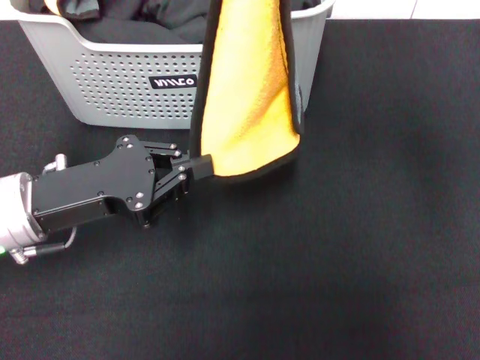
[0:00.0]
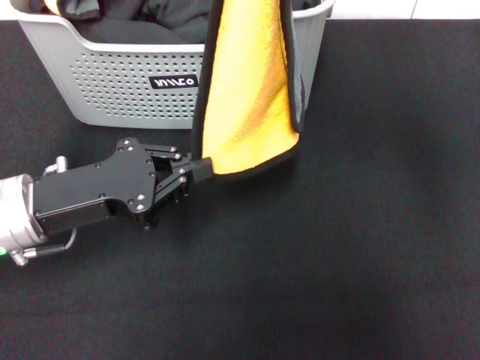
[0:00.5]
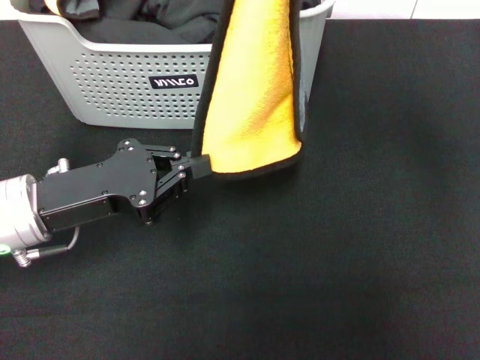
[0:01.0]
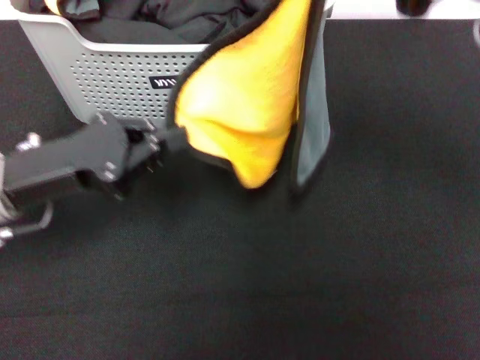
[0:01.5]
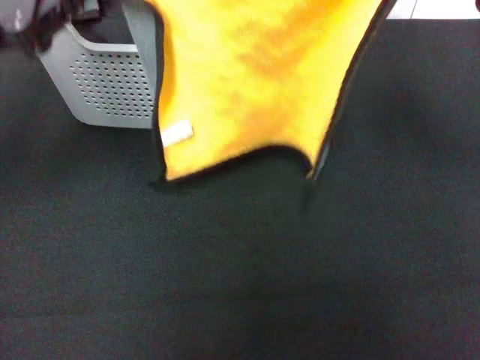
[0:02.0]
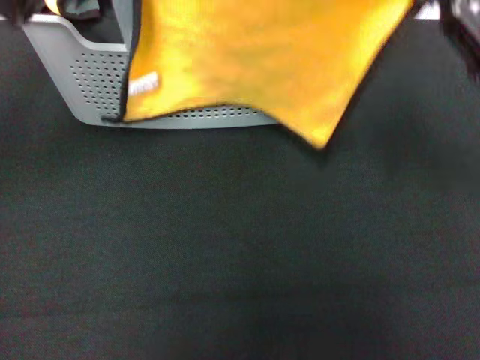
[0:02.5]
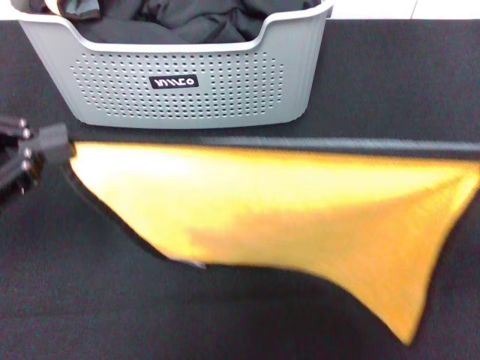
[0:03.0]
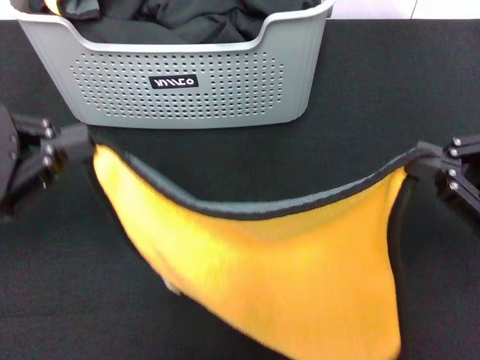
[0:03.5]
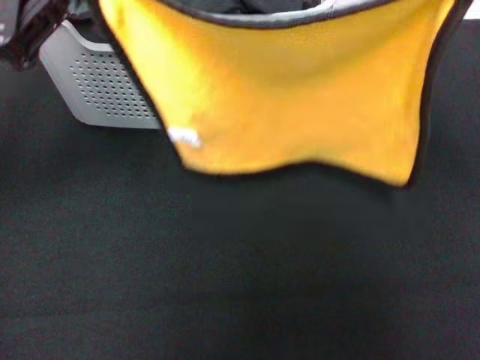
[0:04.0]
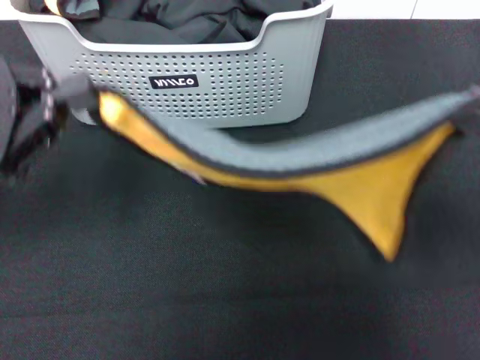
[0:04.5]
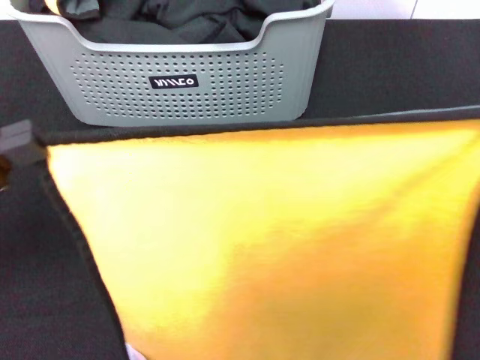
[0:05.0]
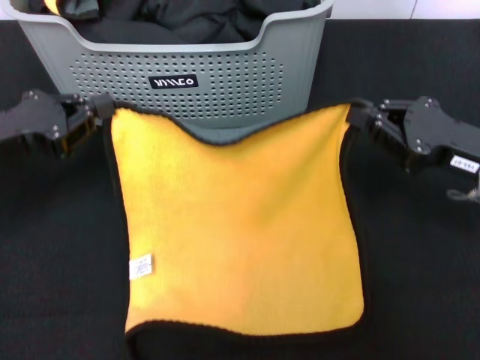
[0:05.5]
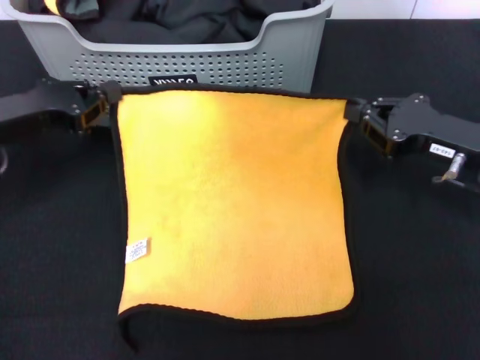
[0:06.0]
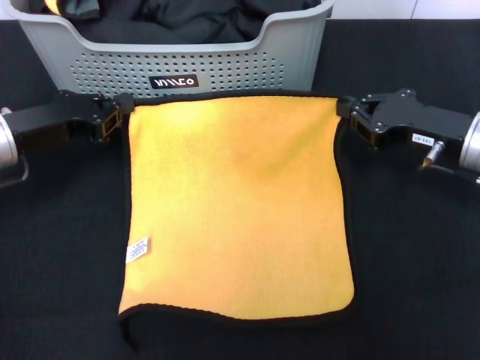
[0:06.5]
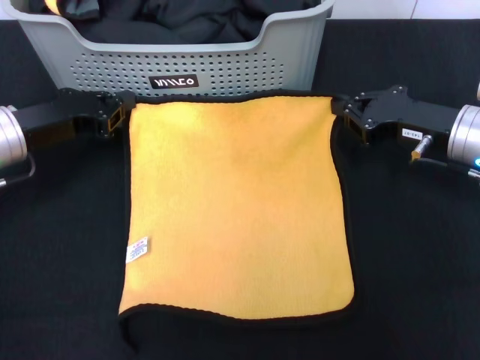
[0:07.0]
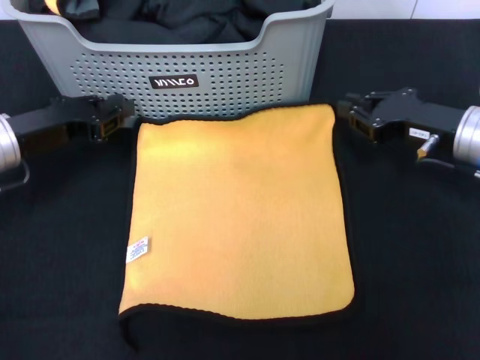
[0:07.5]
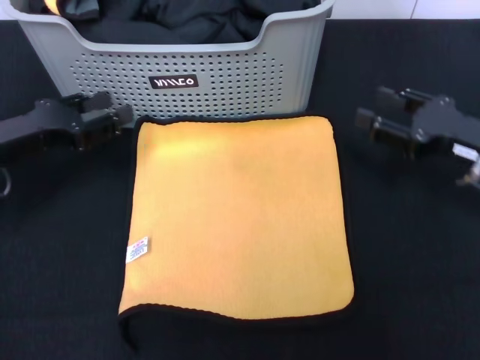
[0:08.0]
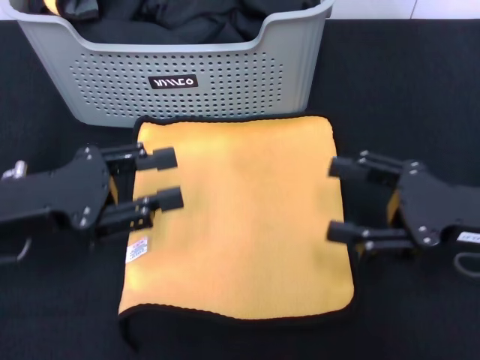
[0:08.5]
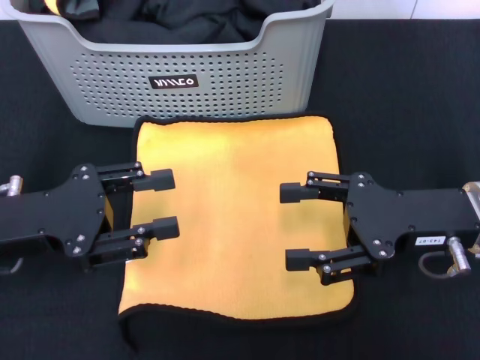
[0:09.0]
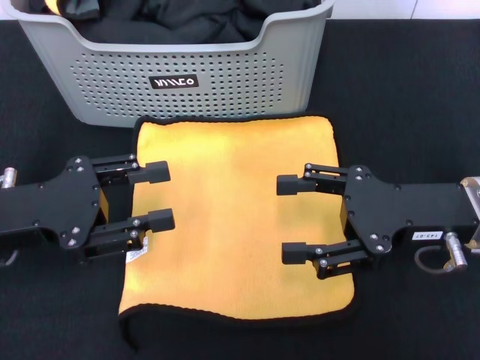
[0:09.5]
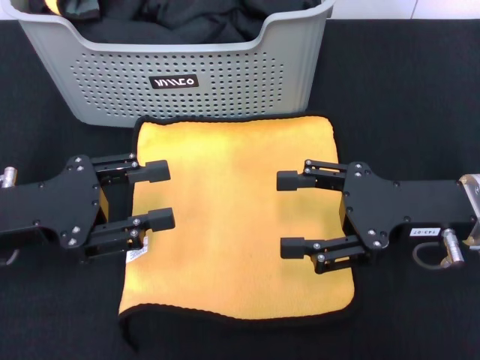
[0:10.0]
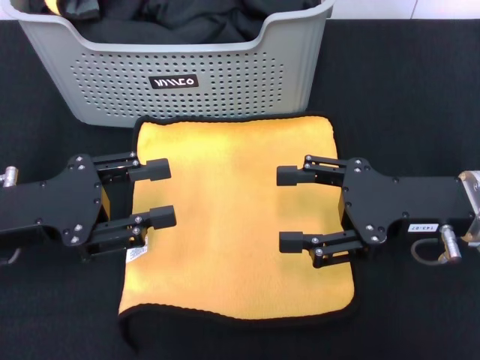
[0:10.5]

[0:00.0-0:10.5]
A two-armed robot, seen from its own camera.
Task of the whole recording: pick up the towel from the storage box and lay it flat on the black tablecloth.
Step, 0:00.0 to 0:07.5: Spread the towel flat with the right gripper.
0:00.0 to 0:02.0: The right gripper moves downward and to the right, roughly 15 cm, while the left gripper travels upward, to the left and forward by about 15 cm.
0:02.0 to 0:04.0: The right gripper reaches some 10 cm backward, then returns, while the left gripper travels backward and back again, approximately 10 cm each way.
0:04.0 to 0:06.5: The left gripper goes about 10 cm downward, and goes backward and returns, about 10 cm each way. The right gripper shifts about 15 cm downward, to the left and forward.
0:06.5 to 0:08.5: Both grippers move backward, approximately 10 cm. The right gripper opens up; the left gripper opens.
0:08.5 to 0:10.5: The grippers move only a little.
